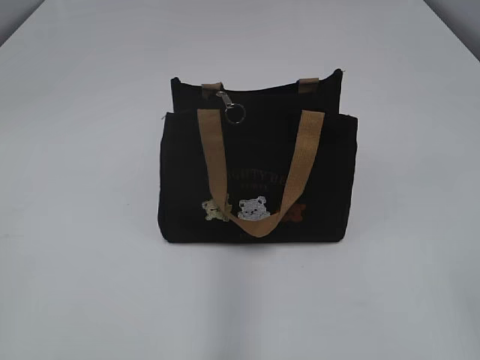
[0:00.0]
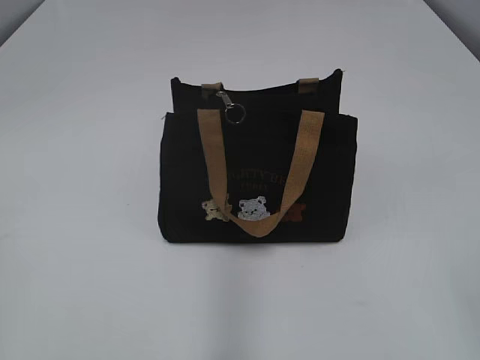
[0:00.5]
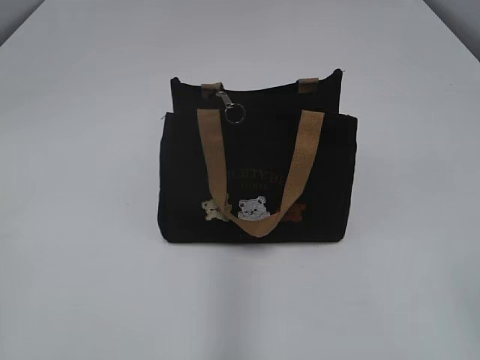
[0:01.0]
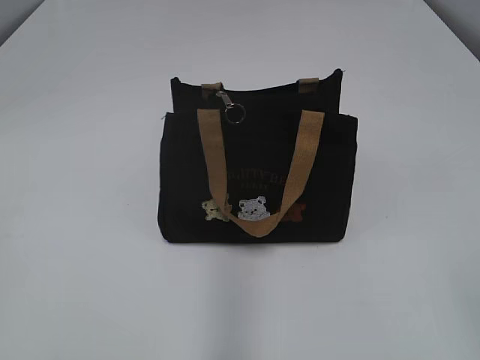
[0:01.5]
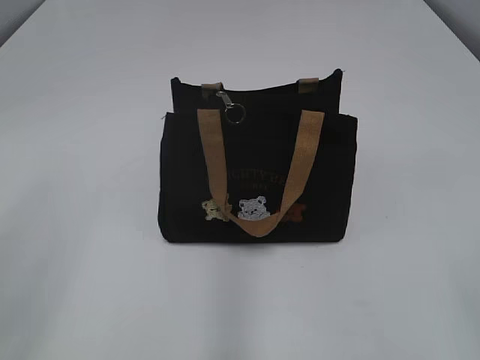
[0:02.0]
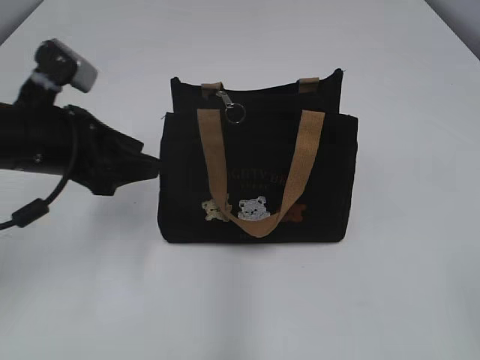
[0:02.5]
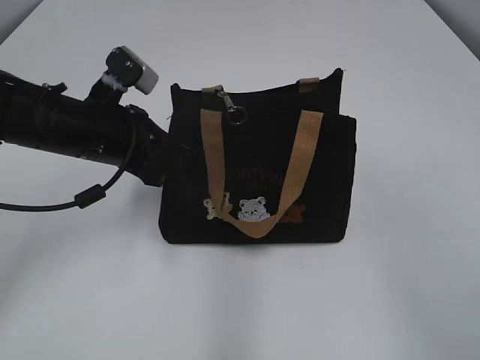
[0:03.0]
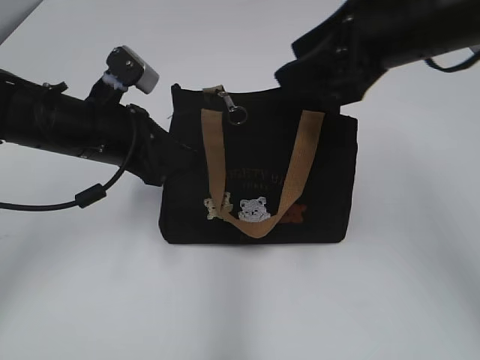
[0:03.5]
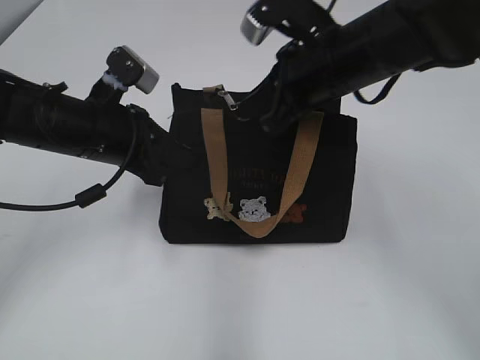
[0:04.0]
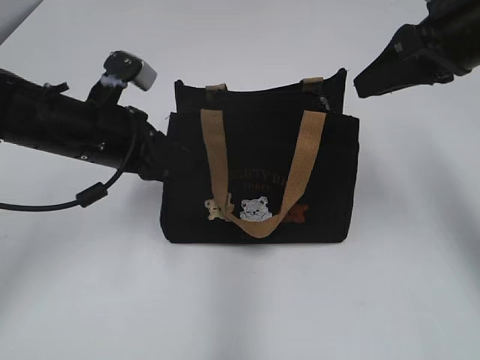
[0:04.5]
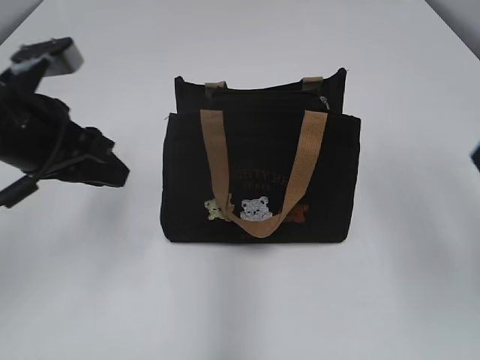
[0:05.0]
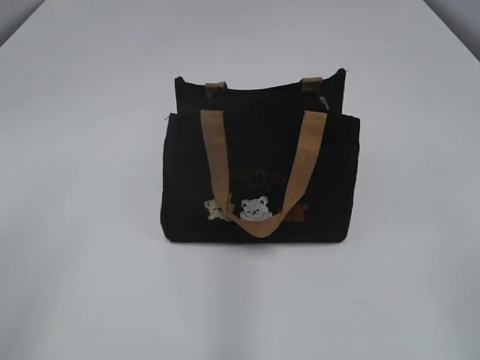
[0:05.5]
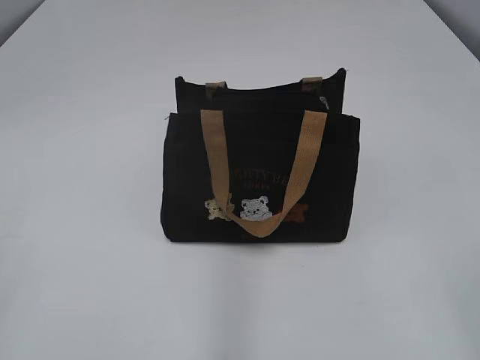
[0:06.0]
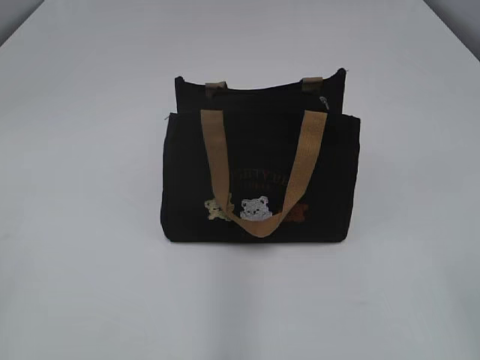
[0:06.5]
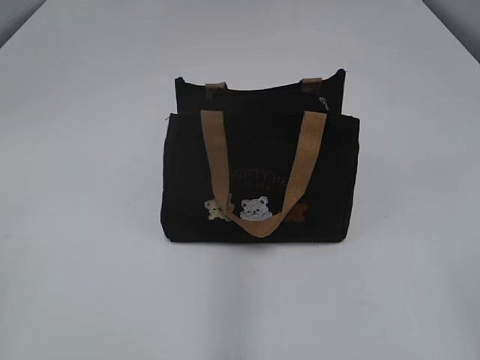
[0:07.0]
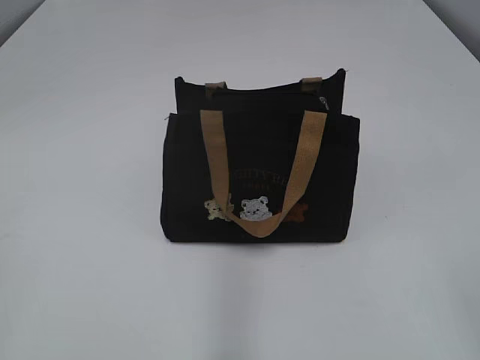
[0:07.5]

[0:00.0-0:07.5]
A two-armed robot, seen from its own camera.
Step, 0:00.0 to 0:04.5: Pull open the zipper with your right hand.
0:02.0 to 0:04.0: The left gripper heads forward and to the right, covering approximately 35 cm, and closes its fingers. The right gripper travels forward and to the left by some 40 cm.
0:04.0 to 0:05.5: The right gripper is displaced backward and to the right by about 30 cm, and closes, then opens again. The left gripper is displaced backward, upward and to the left by some 25 cm, and opens.

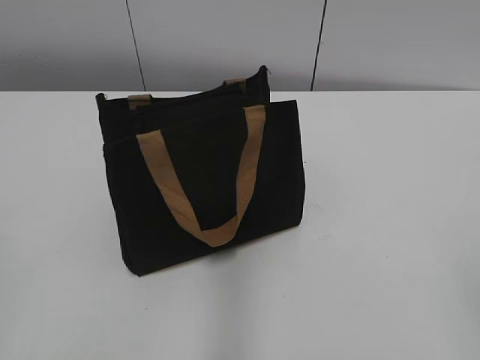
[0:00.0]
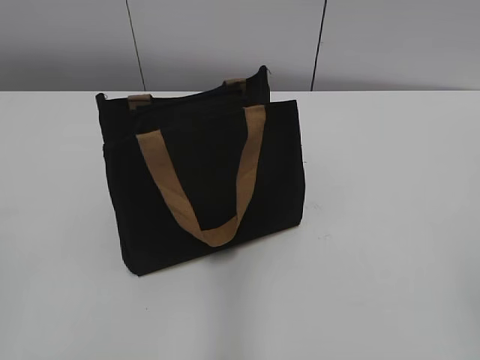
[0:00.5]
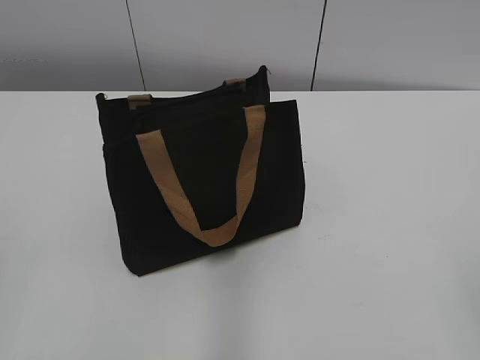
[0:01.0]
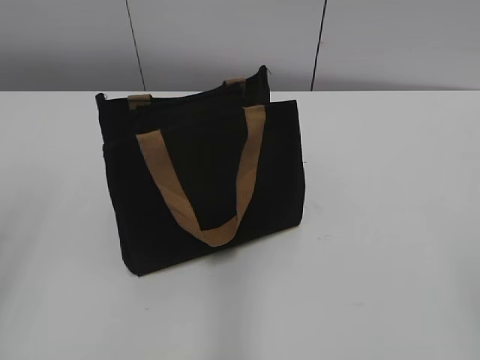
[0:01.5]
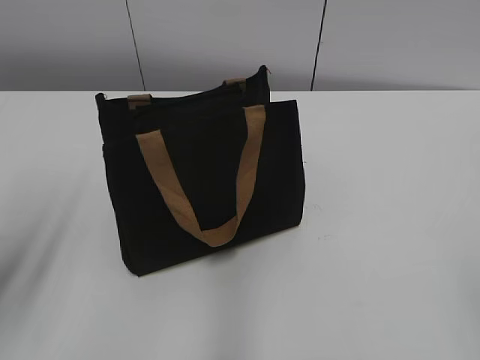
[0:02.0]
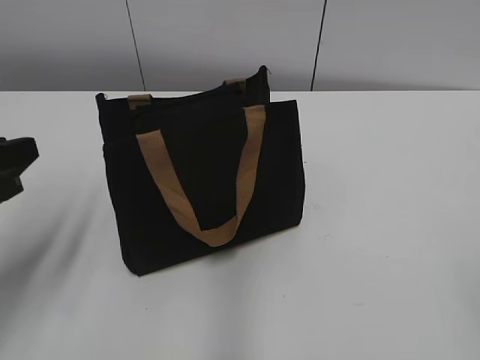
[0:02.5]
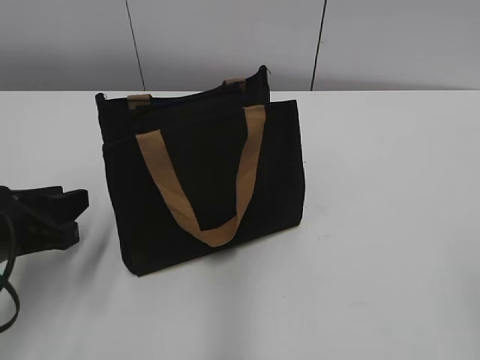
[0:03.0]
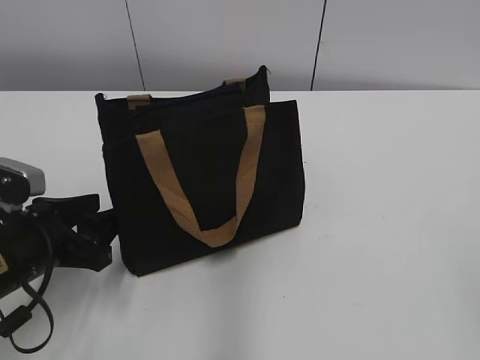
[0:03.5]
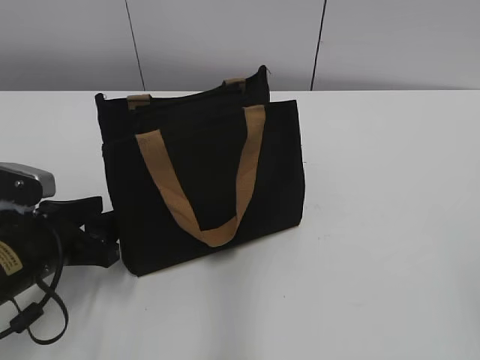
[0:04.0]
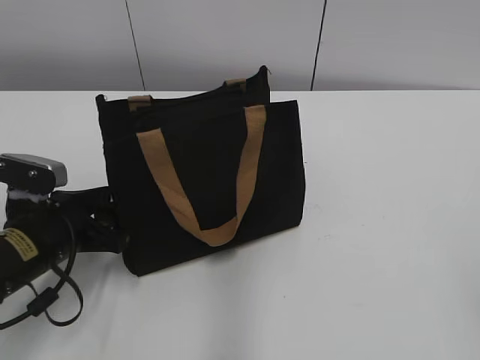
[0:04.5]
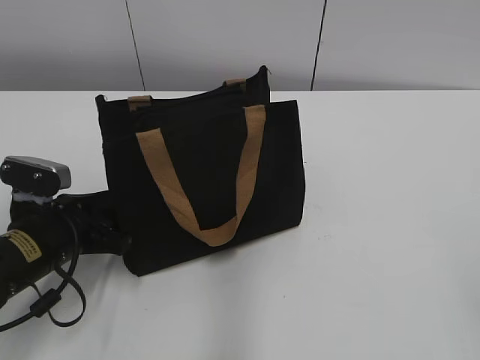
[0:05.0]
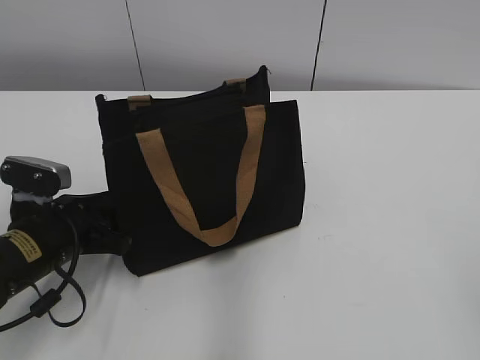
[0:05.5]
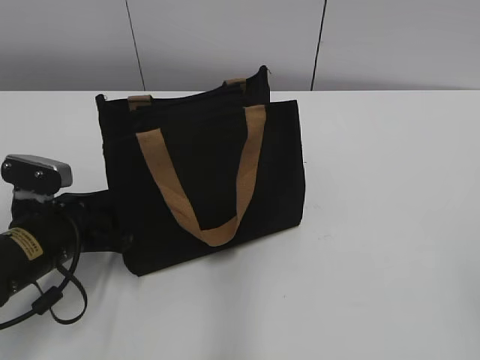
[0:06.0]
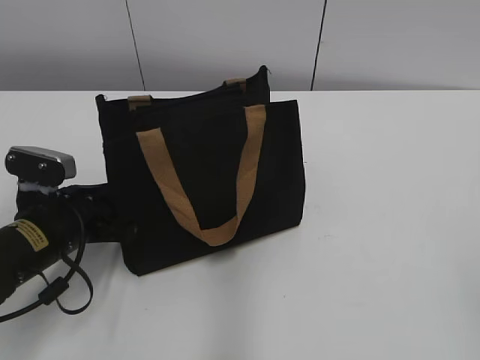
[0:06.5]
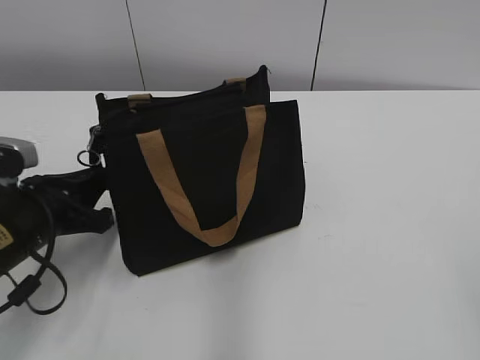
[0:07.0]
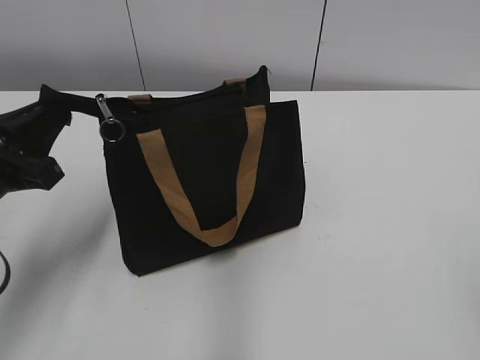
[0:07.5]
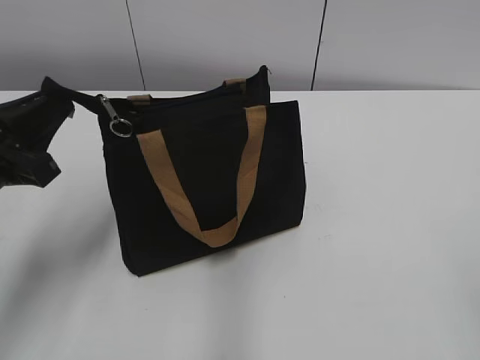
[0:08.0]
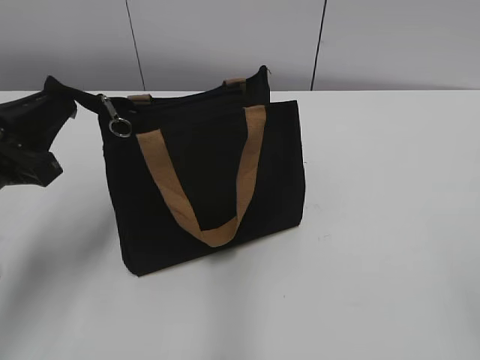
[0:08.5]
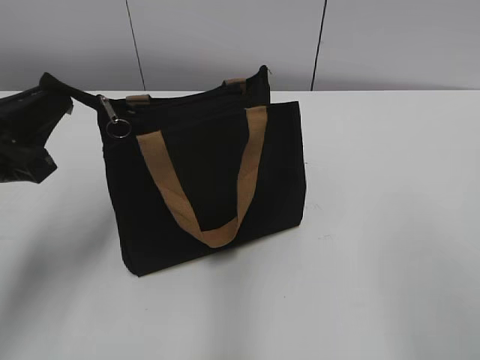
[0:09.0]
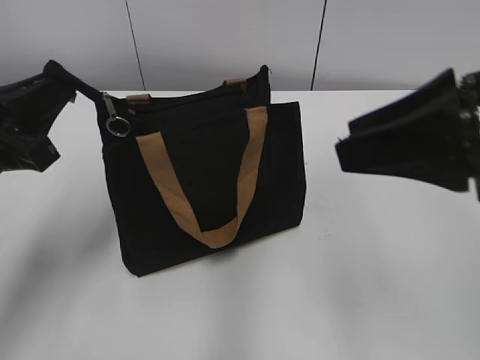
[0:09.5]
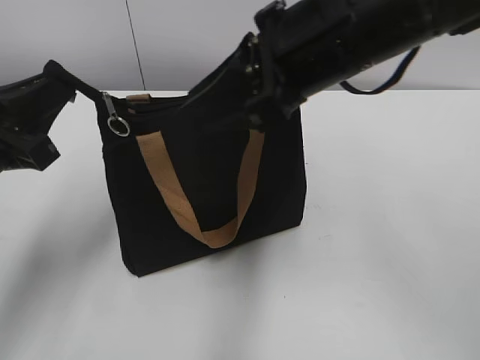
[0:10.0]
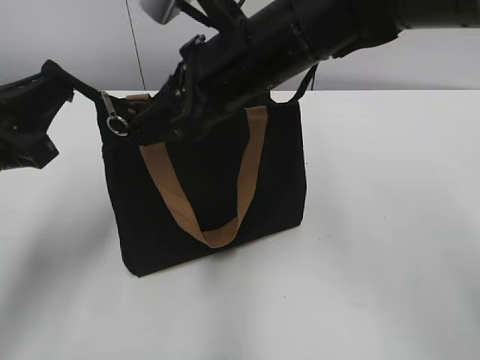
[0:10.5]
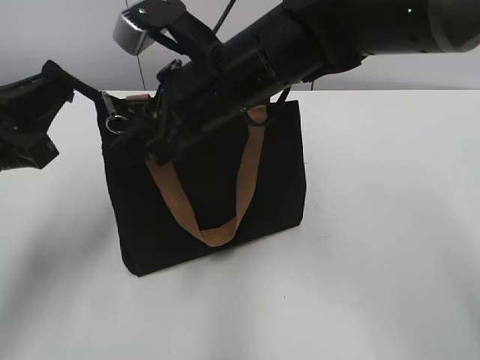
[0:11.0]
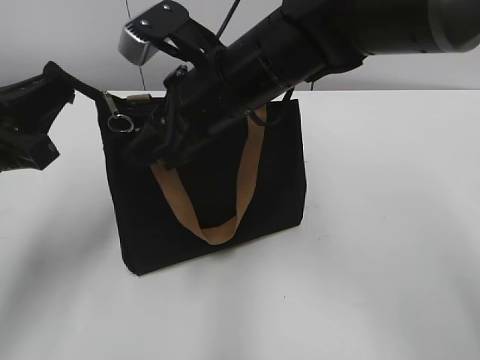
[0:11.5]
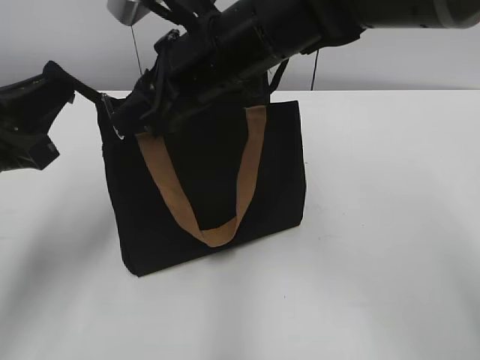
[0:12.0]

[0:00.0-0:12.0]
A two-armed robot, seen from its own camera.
0:02.0 to 0:04.0: The left gripper heads downward, forward and to the right, covering about 20 cm, and opens up.
0:04.0 to 0:06.0: The left gripper closes up.
0:06.0 to 0:08.0: The left gripper travels upward by approximately 10 cm, and closes its fingers.
0:08.0 to 0:10.0: The right gripper heads forward and to the left, covering roughly 35 cm.
0:10.0 to 0:12.0: The right gripper is displaced to the left and forward by some 10 cm.

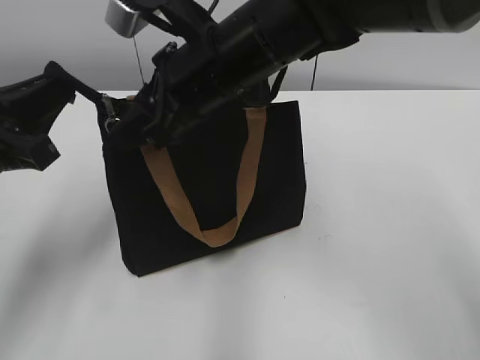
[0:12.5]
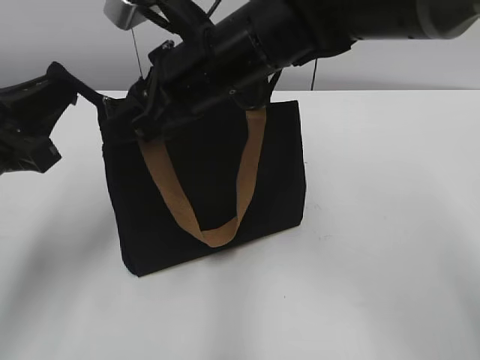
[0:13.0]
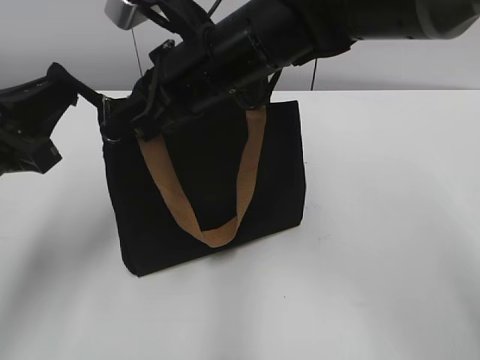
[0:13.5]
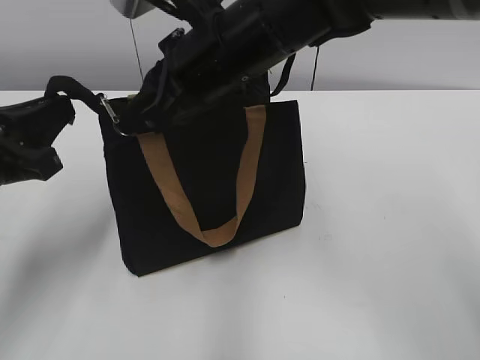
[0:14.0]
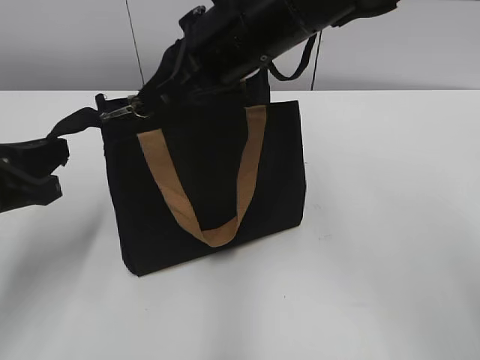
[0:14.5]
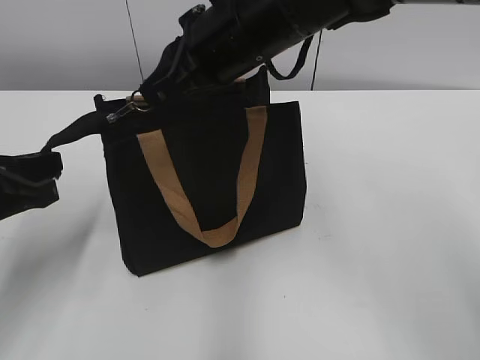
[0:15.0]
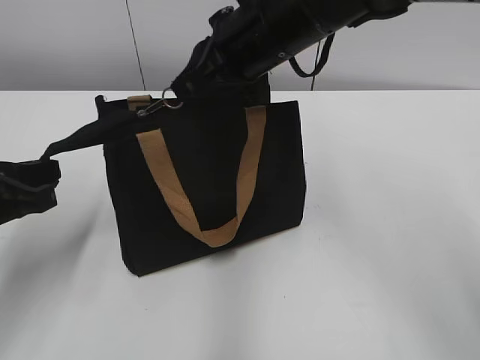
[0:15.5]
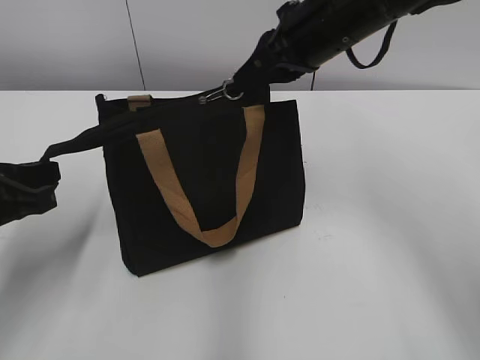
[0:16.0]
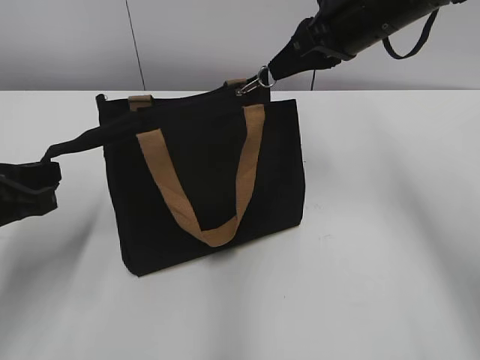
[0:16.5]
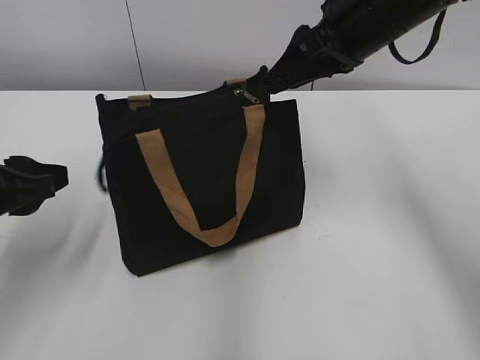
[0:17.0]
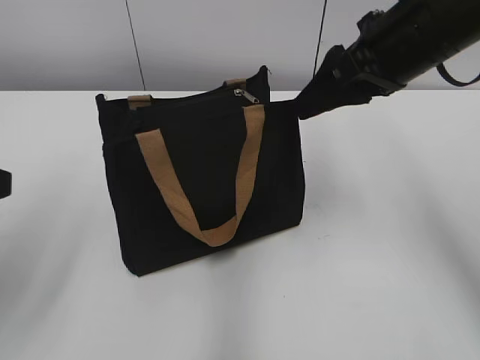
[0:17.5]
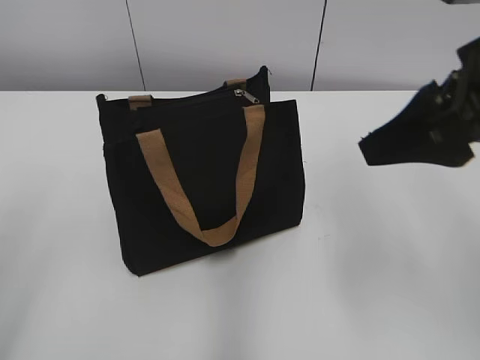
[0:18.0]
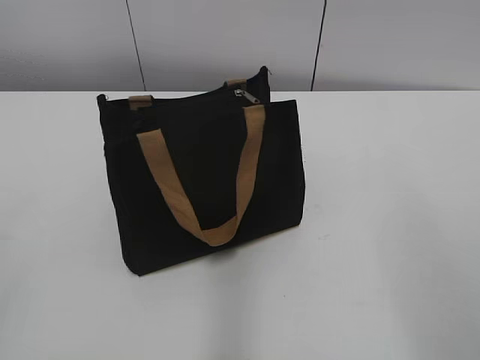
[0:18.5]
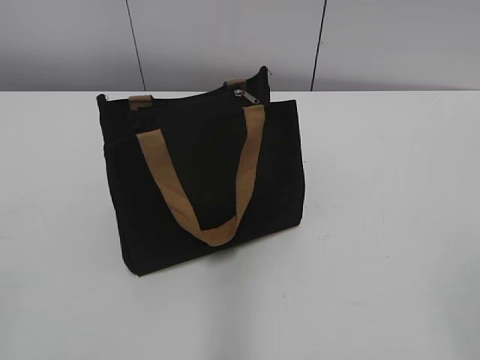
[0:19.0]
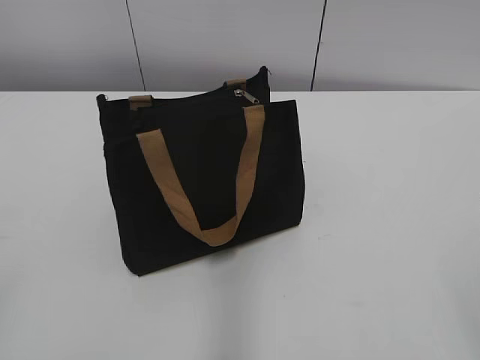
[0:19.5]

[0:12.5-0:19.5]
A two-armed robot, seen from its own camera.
Step, 0:12.5 to 0:16.5: Zip up the bag with your right hand.
0:12.5 to 0:14.5: The right gripper closes its fingers.
0:14.5 to 0:16.0: The right gripper moves to the right and forward, approximately 10 cm.
0:16.0 to 0:17.5: The right gripper is displaced to the right and backward by roughly 10 cm, and opens up, while the left gripper goes roughly 10 cm upward, and opens up.
0:17.5 to 0:19.5: The right gripper travels backward by roughly 35 cm, while the left gripper heads backward, covering about 15 cm.
